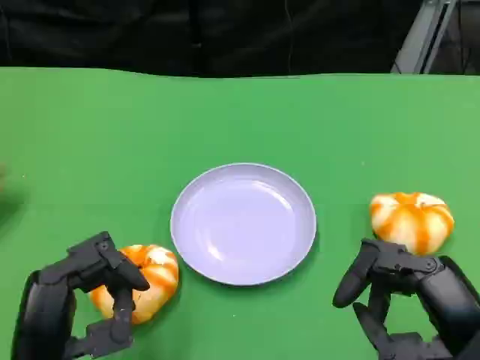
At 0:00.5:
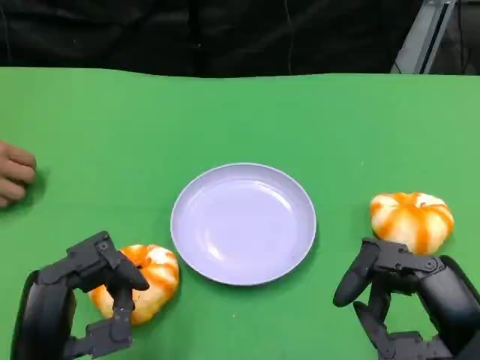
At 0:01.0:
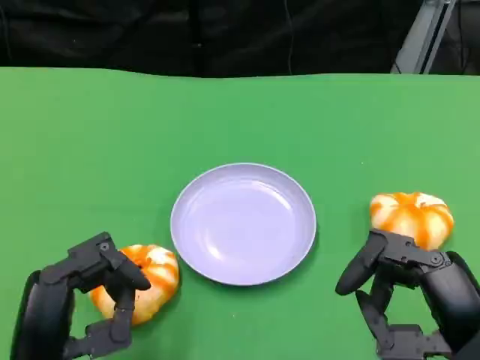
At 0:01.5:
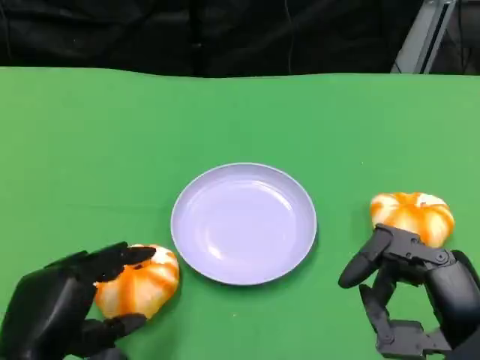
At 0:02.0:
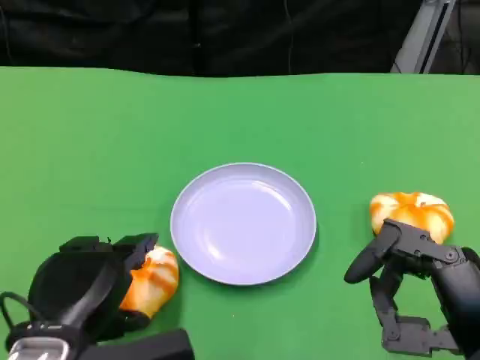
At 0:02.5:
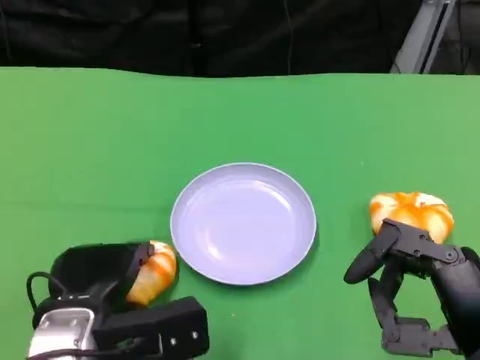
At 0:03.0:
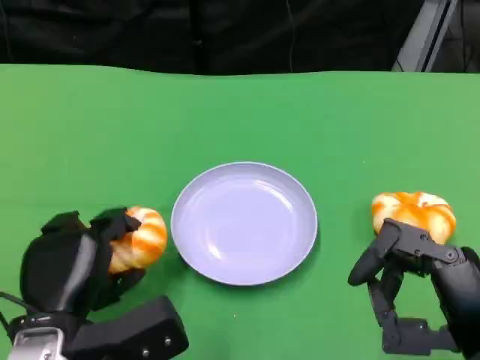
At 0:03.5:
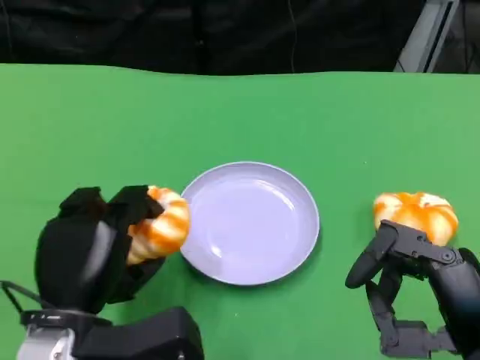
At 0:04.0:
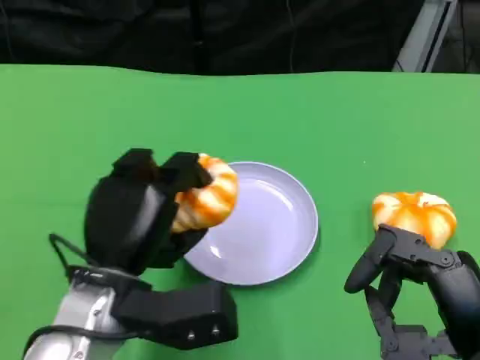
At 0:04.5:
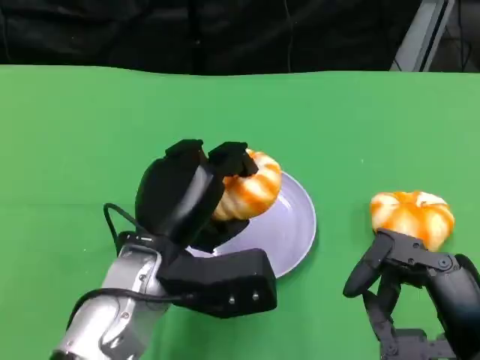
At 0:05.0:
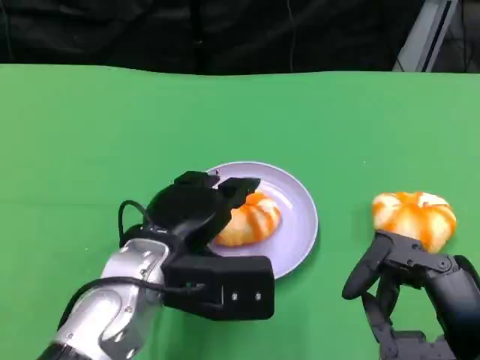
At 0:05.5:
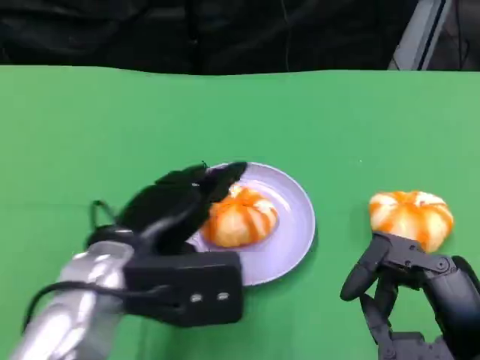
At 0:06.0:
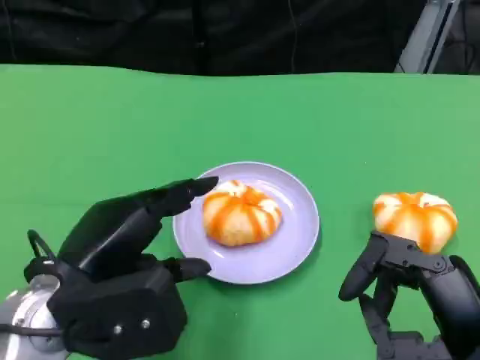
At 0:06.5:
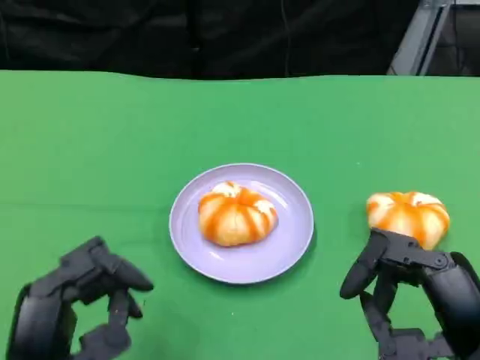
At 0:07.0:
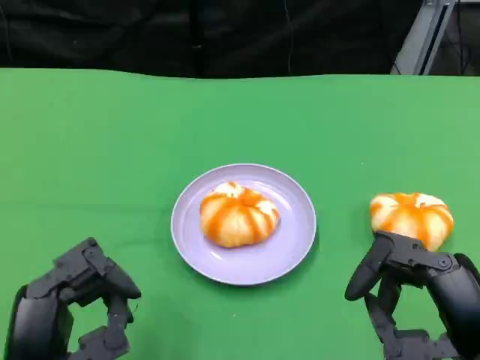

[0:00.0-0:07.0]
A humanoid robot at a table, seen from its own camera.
Task of the whole recording: Grasp the bread from the table and place it into the plate.
0:03.5 to 0:05.0: The left hand shifts some 10 cm to the right and forward.
0:05.0 to 0:07.0: The left hand is displaced backward and to the left by about 15 cm.

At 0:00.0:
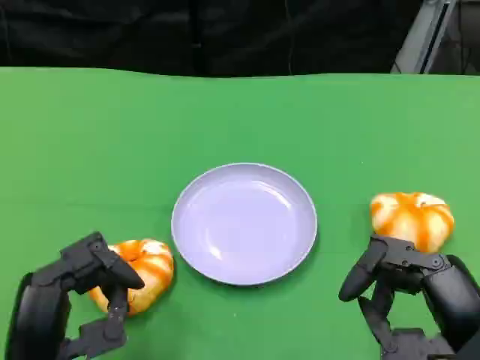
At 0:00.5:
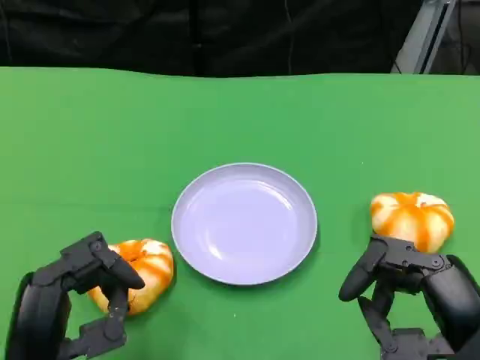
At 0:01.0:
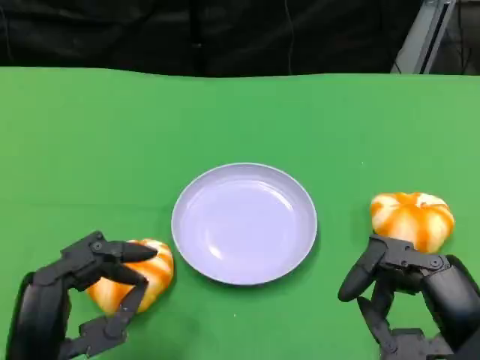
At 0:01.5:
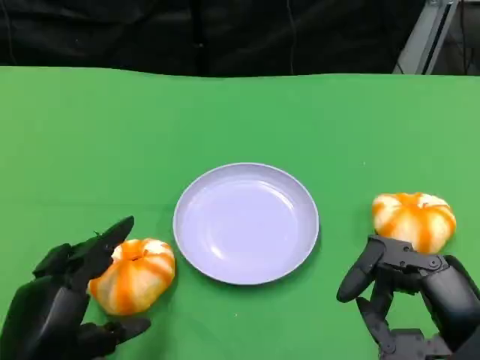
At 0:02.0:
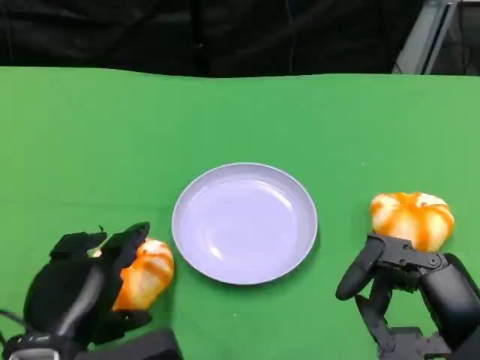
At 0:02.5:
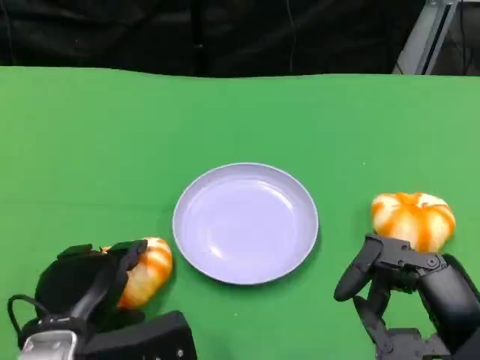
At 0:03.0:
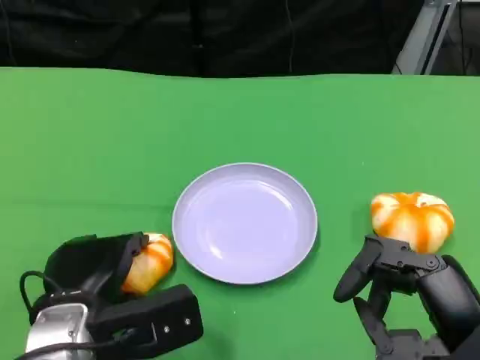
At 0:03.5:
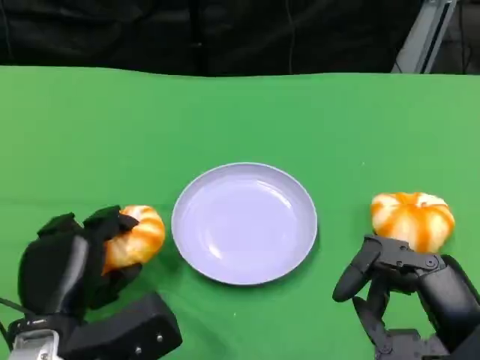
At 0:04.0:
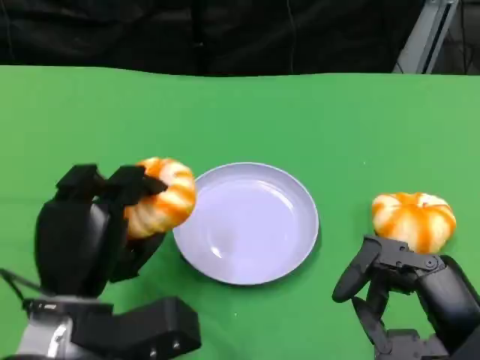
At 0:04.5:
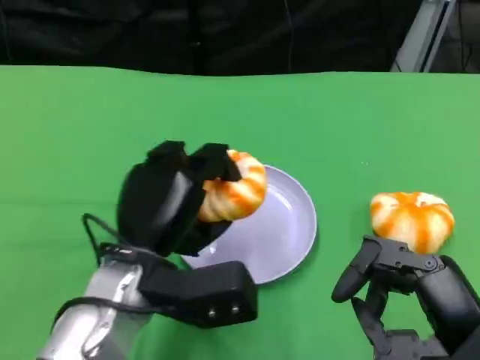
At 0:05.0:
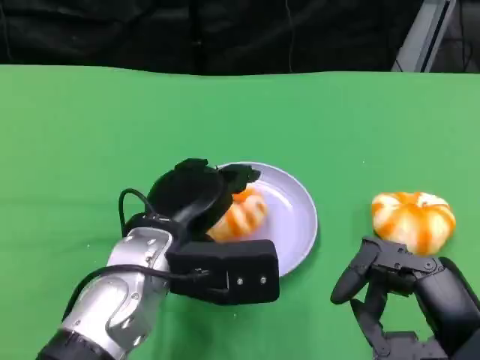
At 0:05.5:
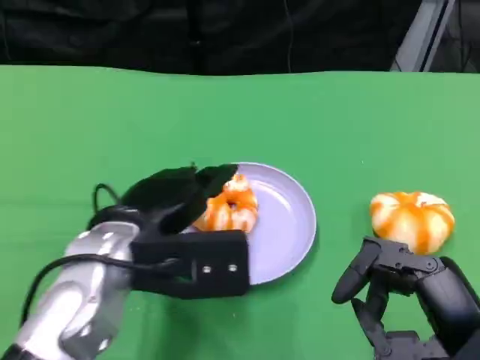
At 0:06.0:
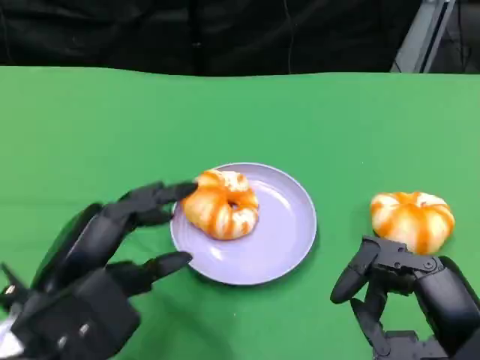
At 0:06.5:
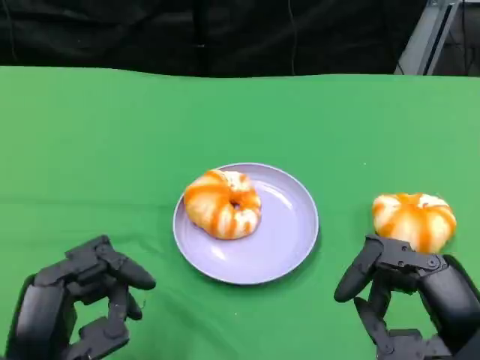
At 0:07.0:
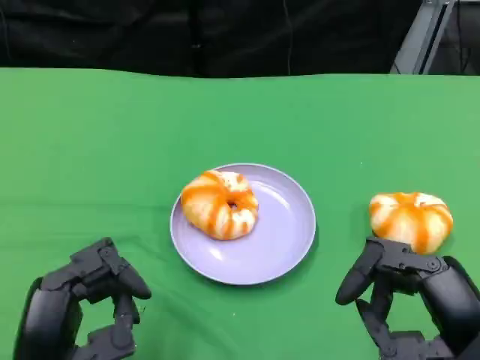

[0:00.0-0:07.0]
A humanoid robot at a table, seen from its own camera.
Task of the whole recording: Grasp the bread from the table and place it into the plate.
0:02.0 to 0:03.5: The hands move only a little.
0:03.5 to 0:05.0: The left hand moves to the right, forward and upward, about 10 cm.
0:05.0 to 0:07.0: The left hand is displaced backward and to the left by roughly 15 cm.

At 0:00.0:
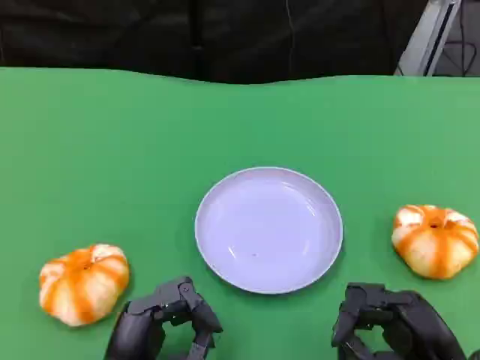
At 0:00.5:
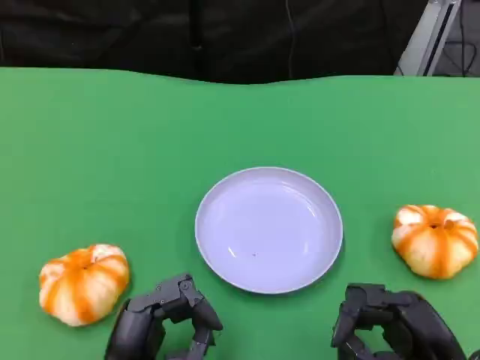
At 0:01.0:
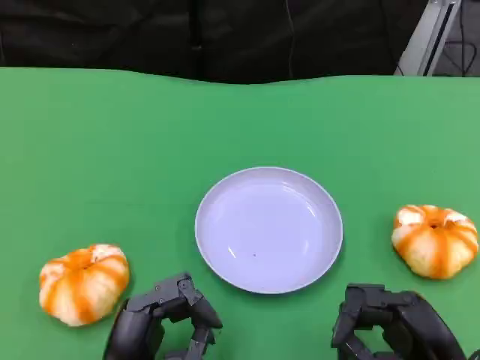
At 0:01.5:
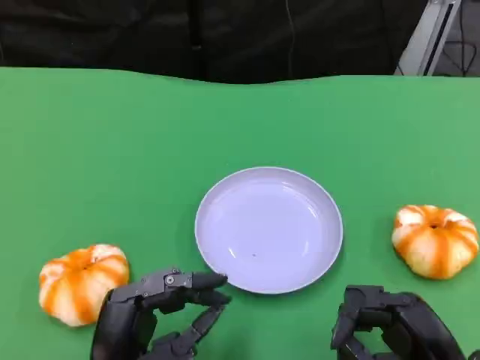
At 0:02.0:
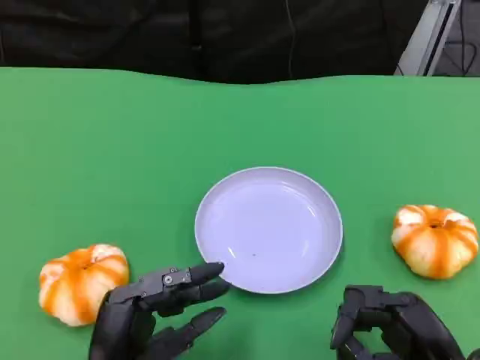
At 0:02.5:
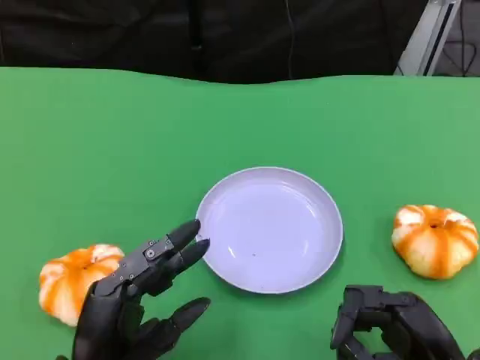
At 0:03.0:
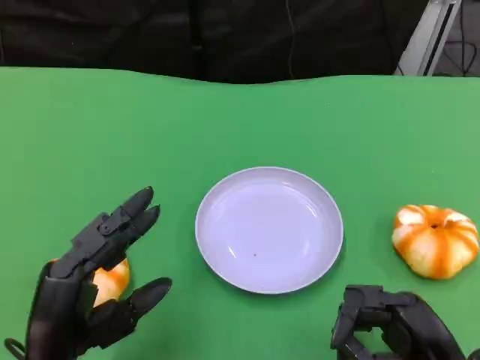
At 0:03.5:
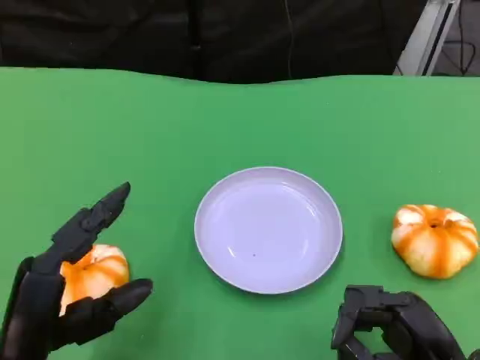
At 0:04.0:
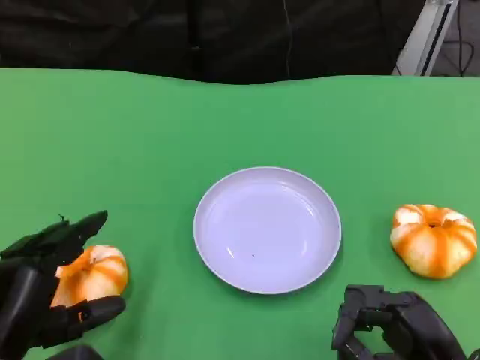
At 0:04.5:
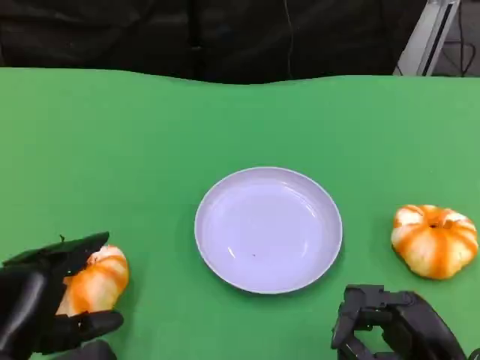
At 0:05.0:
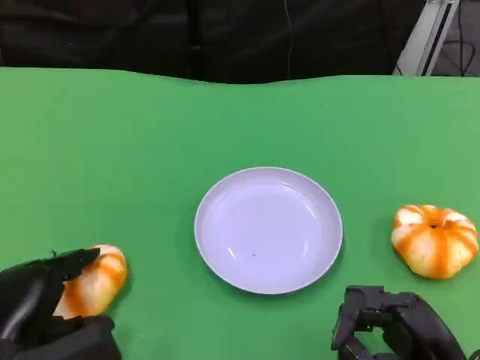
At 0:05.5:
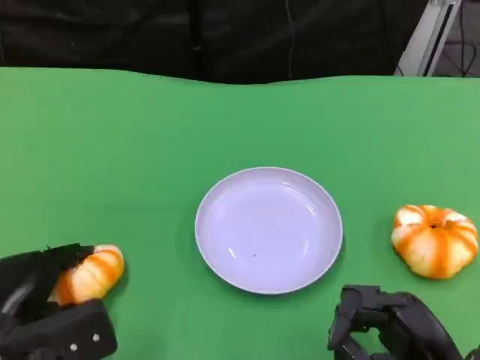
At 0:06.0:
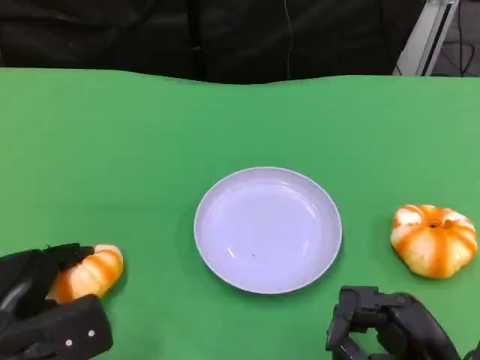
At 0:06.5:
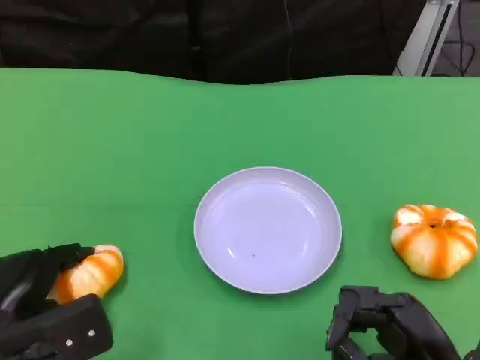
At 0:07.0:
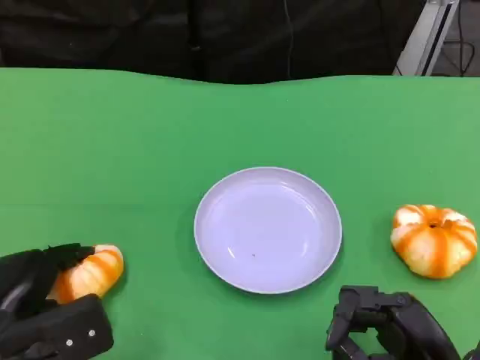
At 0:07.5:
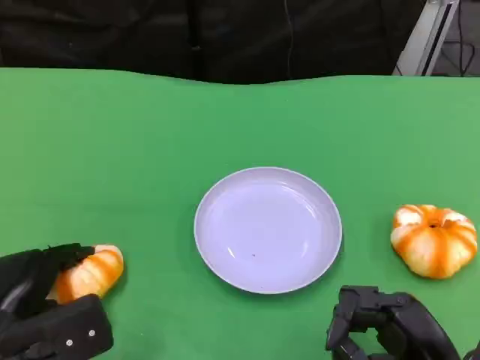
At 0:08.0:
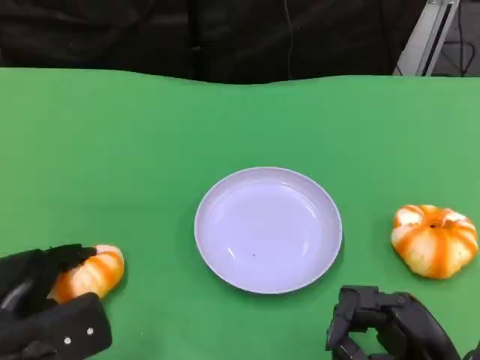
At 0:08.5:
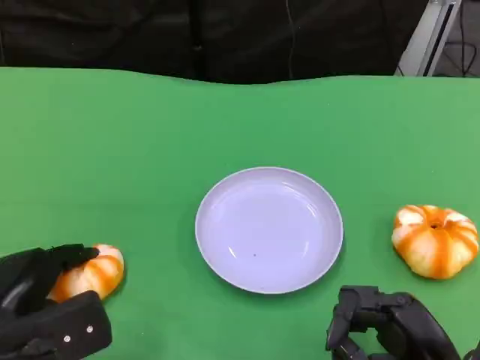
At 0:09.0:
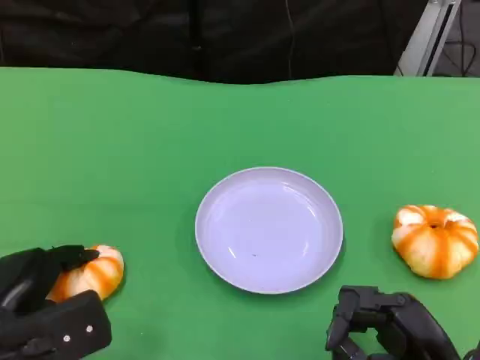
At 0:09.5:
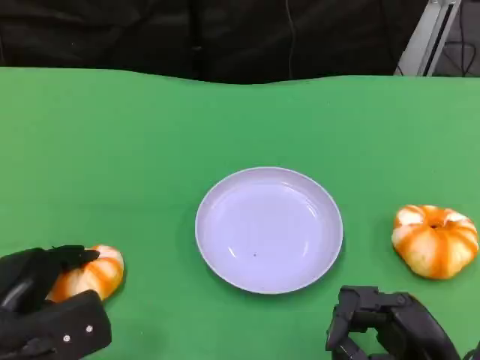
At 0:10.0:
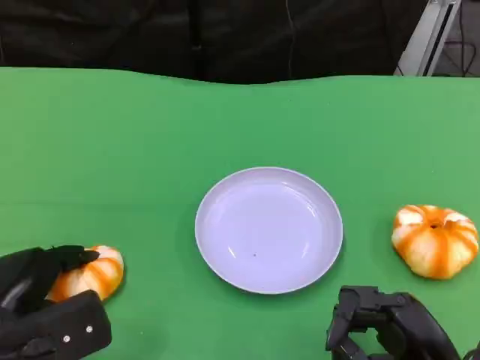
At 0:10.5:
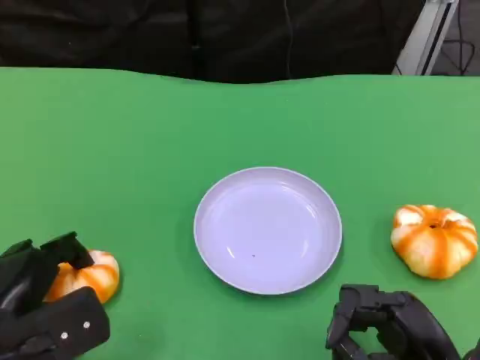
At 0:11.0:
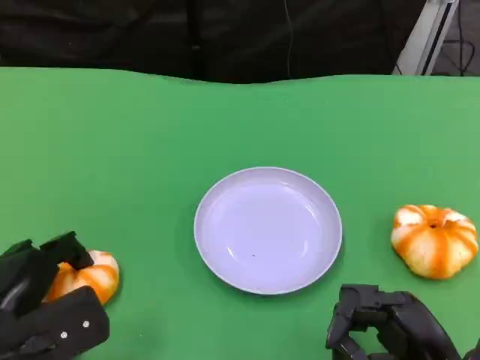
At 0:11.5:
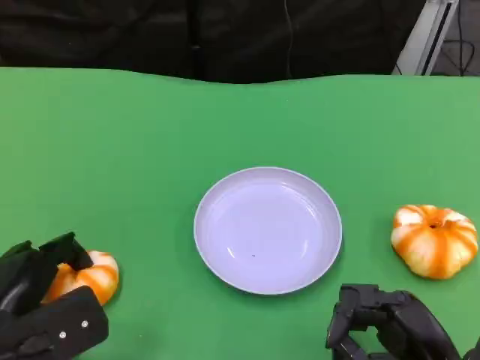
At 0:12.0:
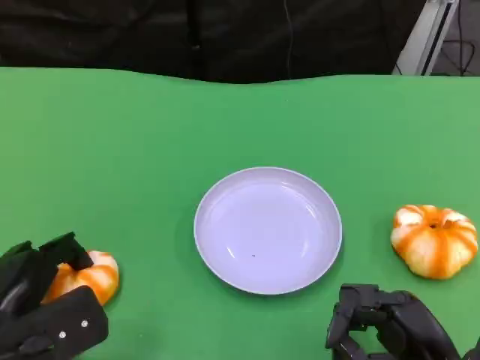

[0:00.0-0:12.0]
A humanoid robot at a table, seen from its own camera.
Task of the whole recording: Grasp the bread from the table and place it into the plate.
0:00.0 to 0:02.0: The hands make only small movements.
0:02.0 to 0:04.0: The left hand travels to the left by about 10 cm.
0:04.0 to 0:06.0: The left hand changes place by about 5 cm.
0:06.0 to 0:10.0: Both hands stay put.
0:10.0 to 0:12.0: The two hands keep their place.
